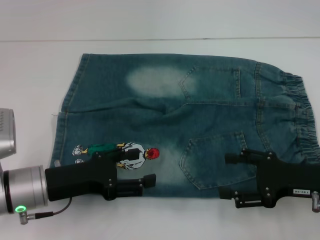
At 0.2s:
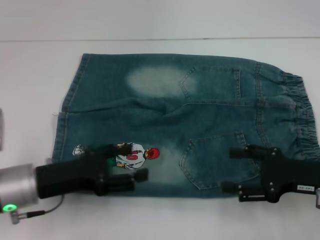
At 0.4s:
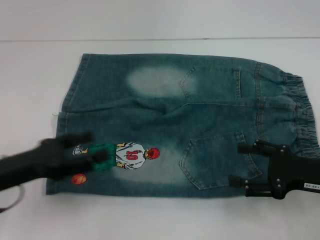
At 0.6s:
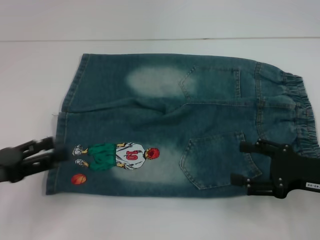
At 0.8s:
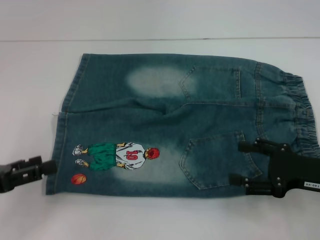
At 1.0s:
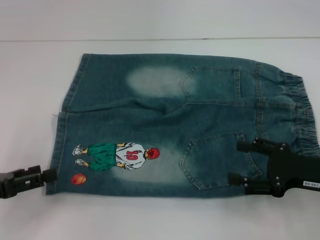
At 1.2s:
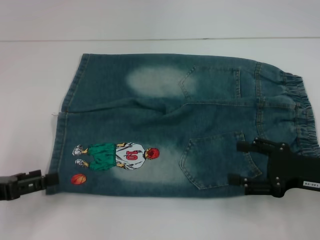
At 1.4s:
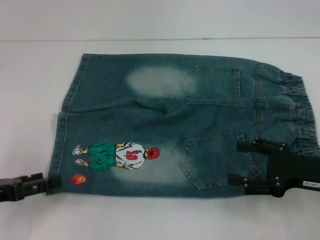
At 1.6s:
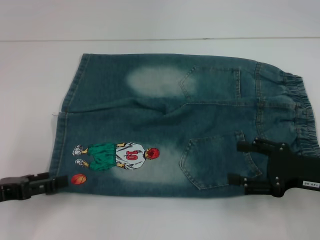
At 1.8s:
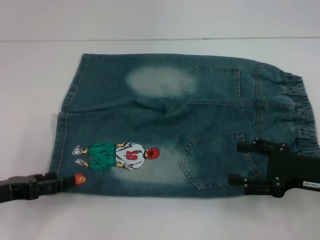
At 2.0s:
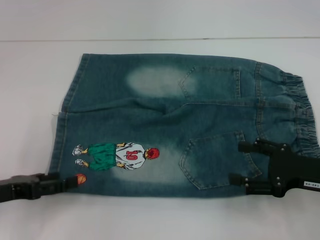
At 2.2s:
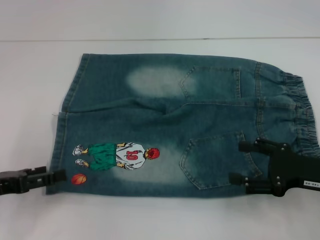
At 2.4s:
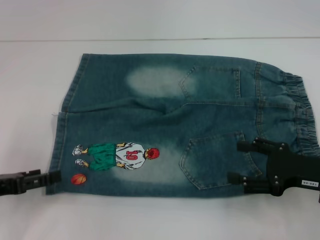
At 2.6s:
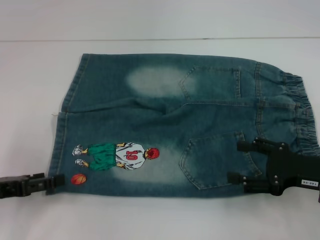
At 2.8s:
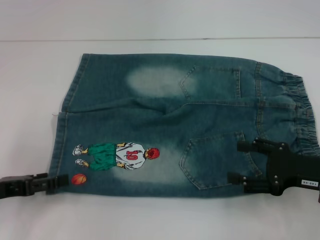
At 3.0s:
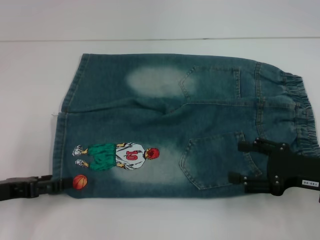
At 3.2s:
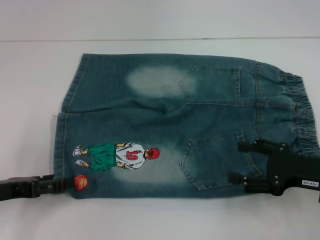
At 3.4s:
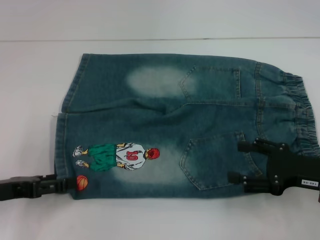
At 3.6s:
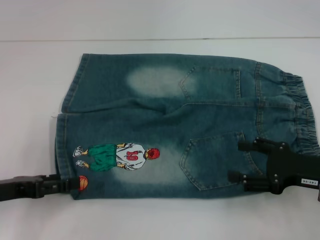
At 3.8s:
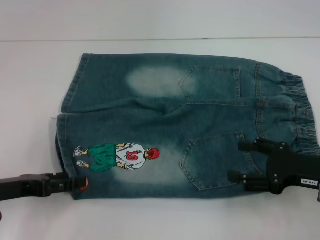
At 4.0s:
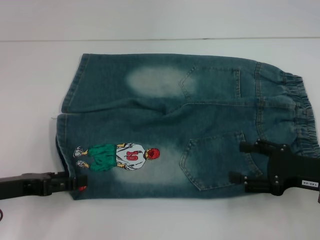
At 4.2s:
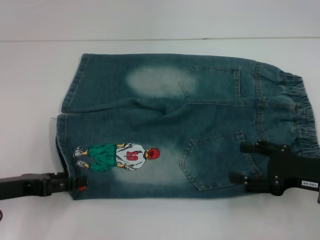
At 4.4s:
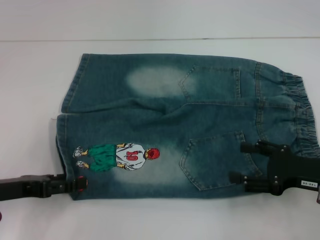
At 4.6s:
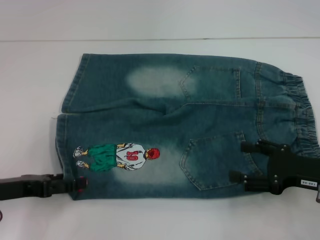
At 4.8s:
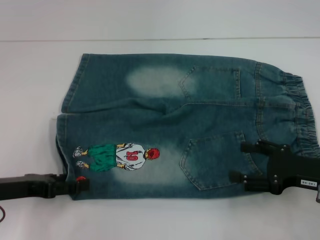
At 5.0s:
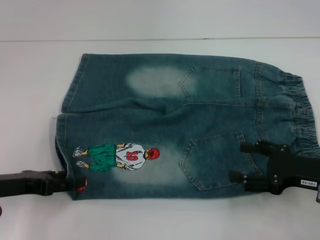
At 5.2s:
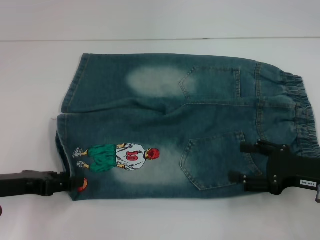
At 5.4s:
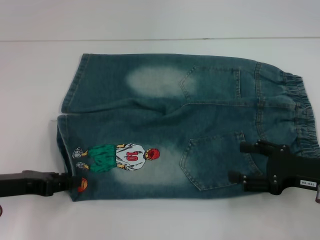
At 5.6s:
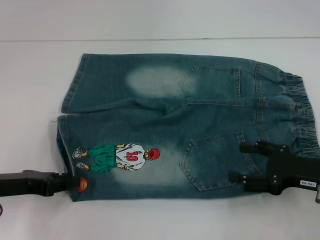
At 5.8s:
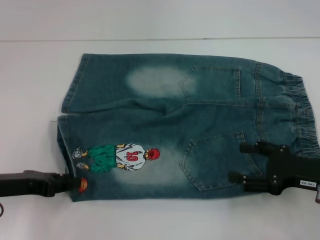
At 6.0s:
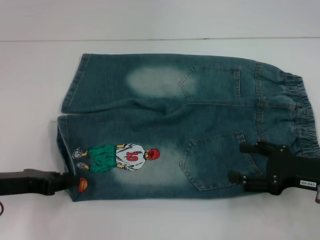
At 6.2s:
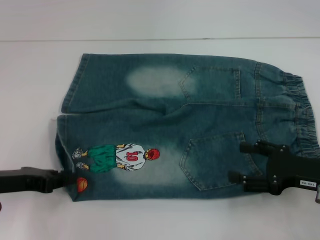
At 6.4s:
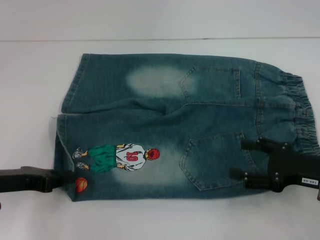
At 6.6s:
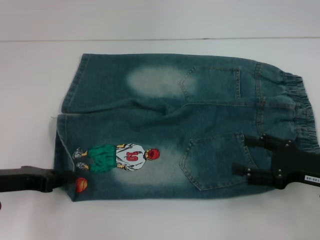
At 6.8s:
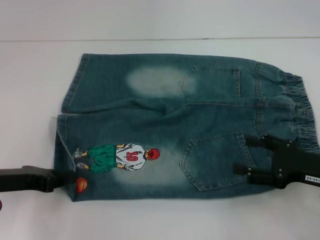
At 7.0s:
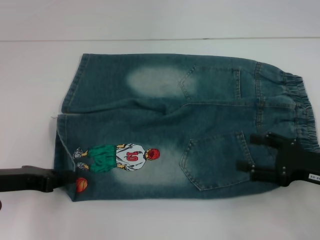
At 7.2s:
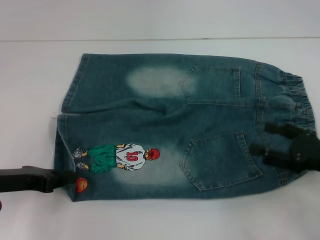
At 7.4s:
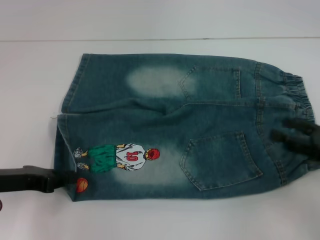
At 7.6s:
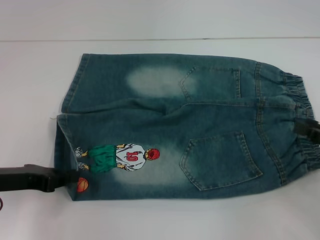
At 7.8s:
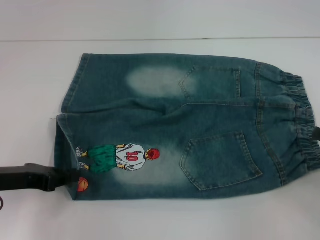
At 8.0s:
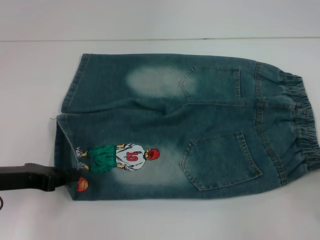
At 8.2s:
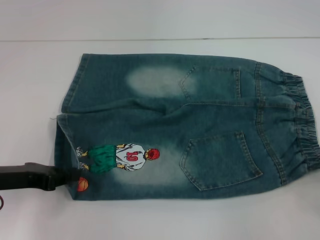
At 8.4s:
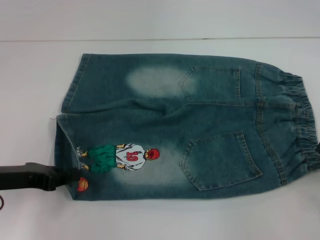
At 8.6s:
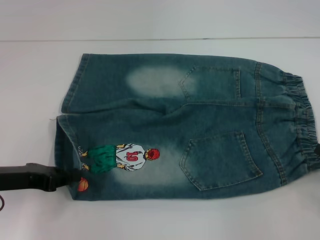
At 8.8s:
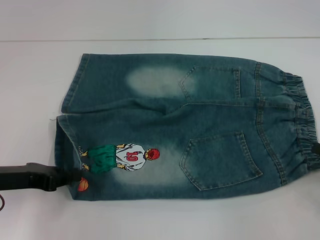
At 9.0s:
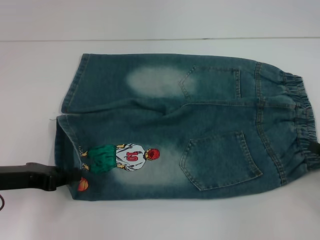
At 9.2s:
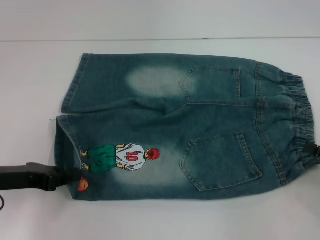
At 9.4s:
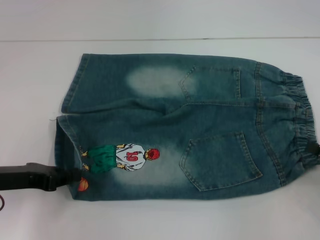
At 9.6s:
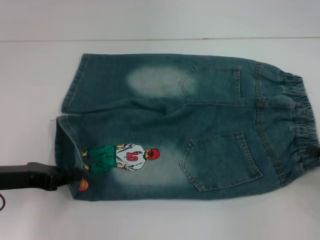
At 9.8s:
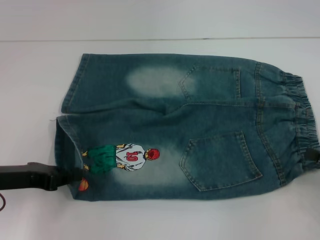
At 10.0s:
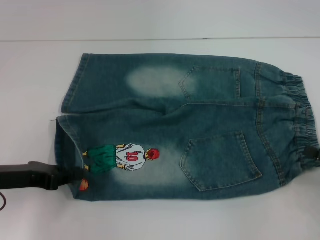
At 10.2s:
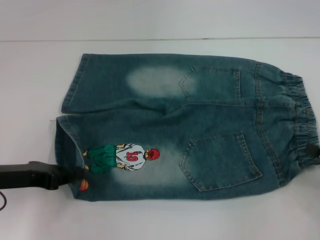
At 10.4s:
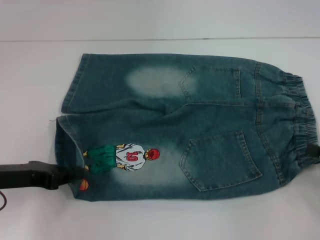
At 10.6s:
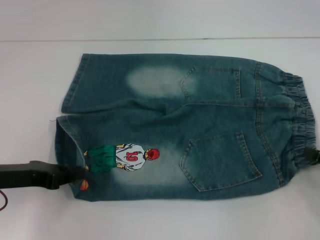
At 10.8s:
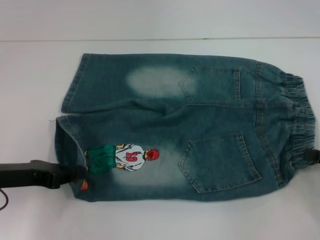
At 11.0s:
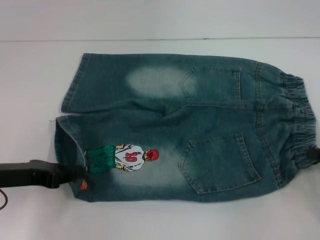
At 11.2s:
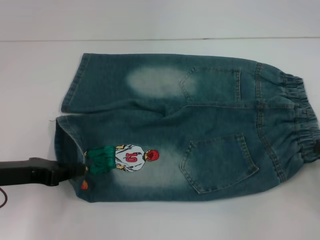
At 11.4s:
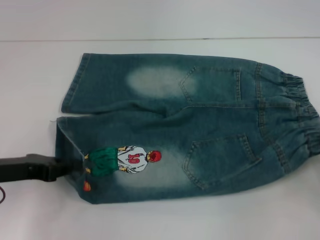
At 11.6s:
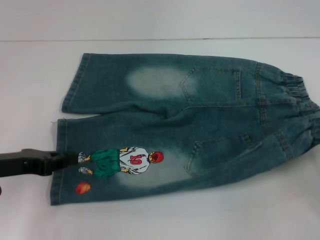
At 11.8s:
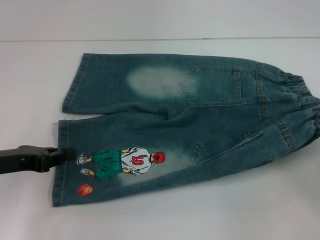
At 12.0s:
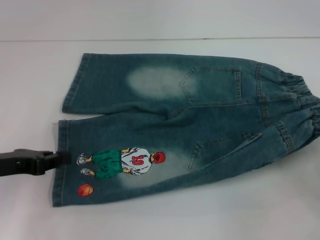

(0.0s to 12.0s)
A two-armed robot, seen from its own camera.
Step, 0.0s - 11.4s: Hold the lower right waistband with your right hand.
0.0s - 1.6s: The left gripper heads to the left, covering roughly 10 cm.
1.6s - 4.4s: The grippers move only a little.
4.4s - 6.0s: The left gripper closes.
6.0s - 7.6s: The right gripper shifts roughly 5 cm to the right.
7.6s - 10.4s: The grippers make only small movements.
10.4s - 12.0s: The right gripper closes up.

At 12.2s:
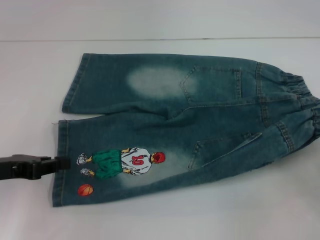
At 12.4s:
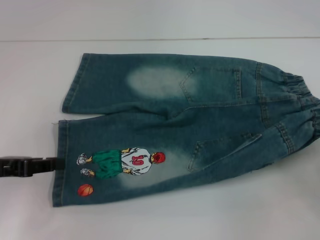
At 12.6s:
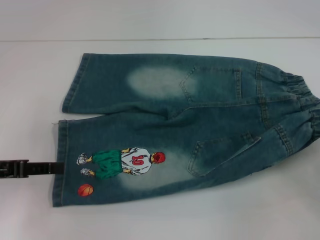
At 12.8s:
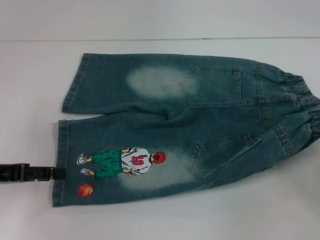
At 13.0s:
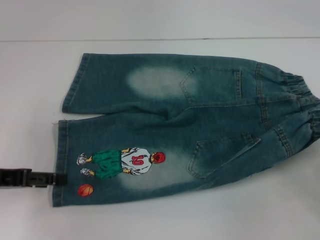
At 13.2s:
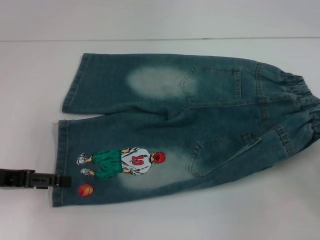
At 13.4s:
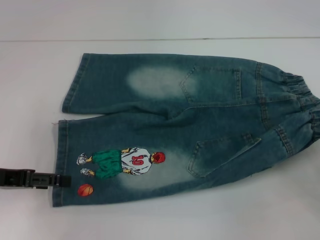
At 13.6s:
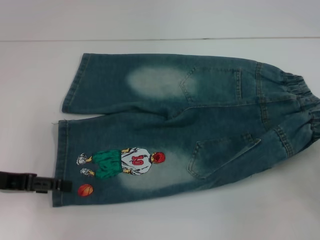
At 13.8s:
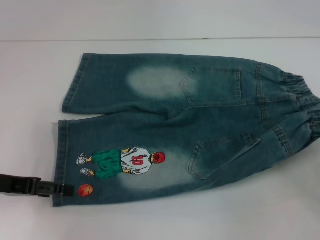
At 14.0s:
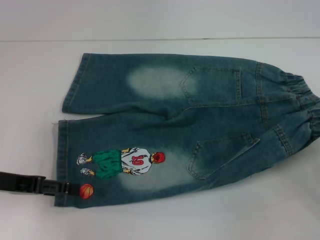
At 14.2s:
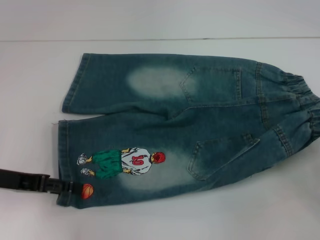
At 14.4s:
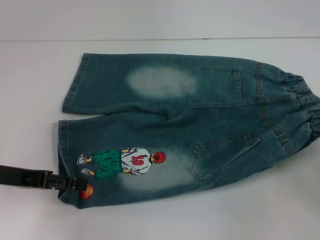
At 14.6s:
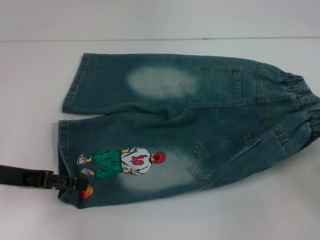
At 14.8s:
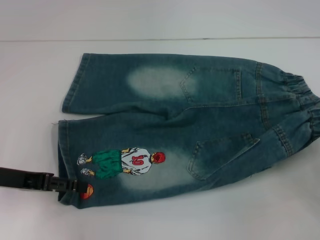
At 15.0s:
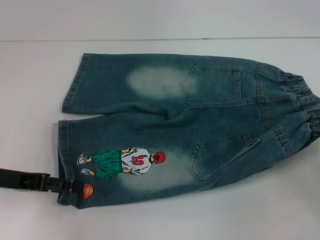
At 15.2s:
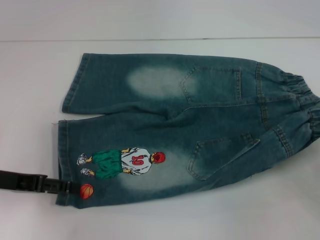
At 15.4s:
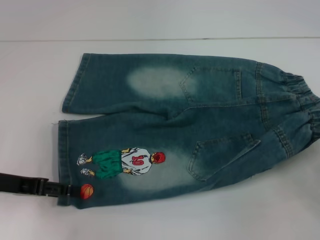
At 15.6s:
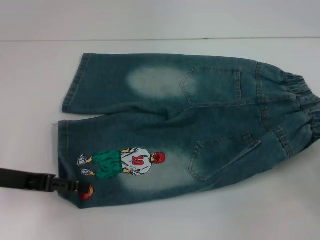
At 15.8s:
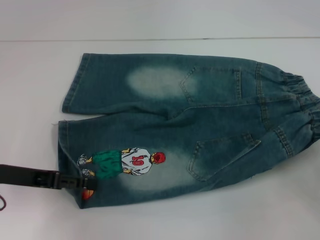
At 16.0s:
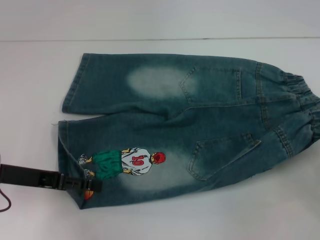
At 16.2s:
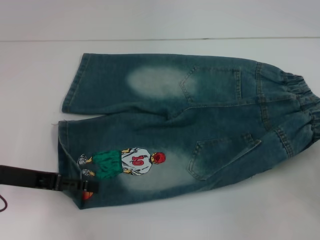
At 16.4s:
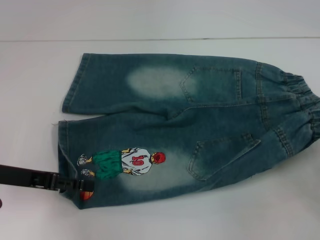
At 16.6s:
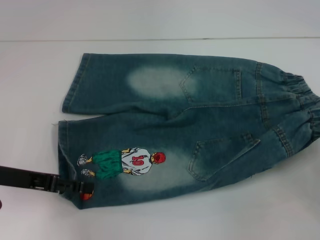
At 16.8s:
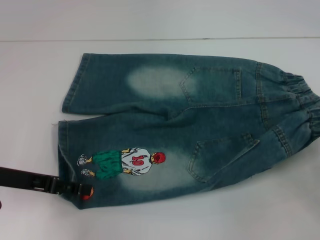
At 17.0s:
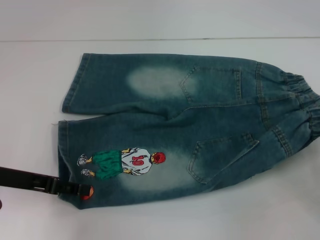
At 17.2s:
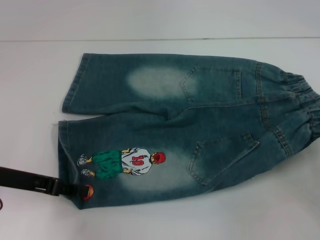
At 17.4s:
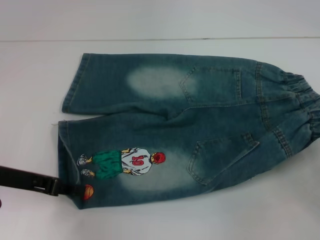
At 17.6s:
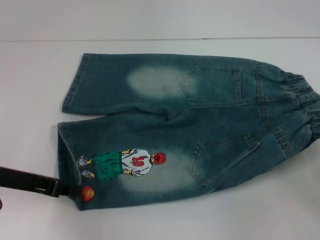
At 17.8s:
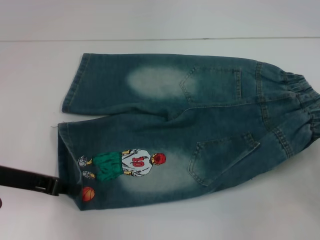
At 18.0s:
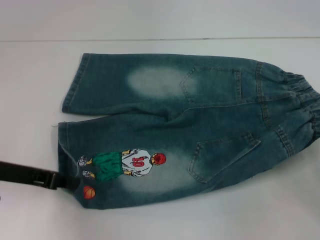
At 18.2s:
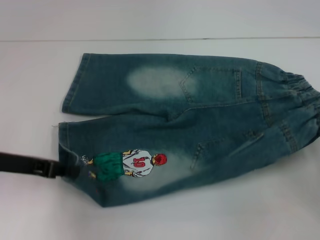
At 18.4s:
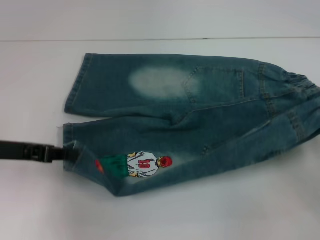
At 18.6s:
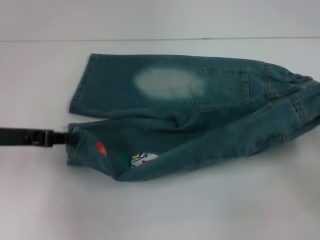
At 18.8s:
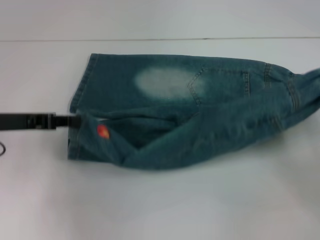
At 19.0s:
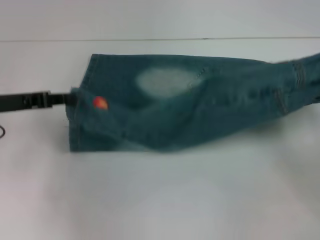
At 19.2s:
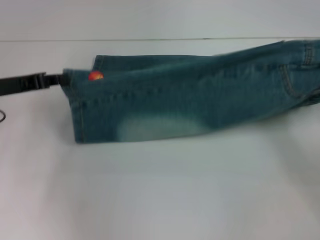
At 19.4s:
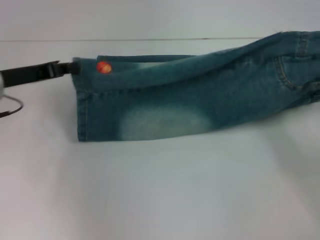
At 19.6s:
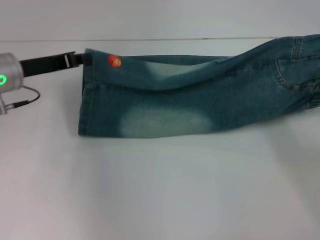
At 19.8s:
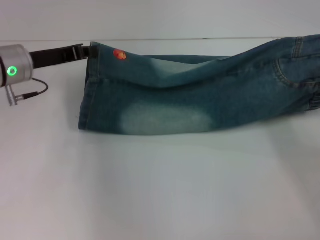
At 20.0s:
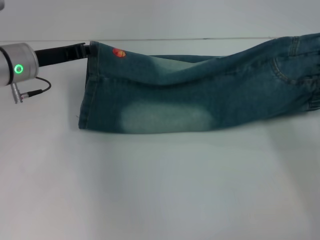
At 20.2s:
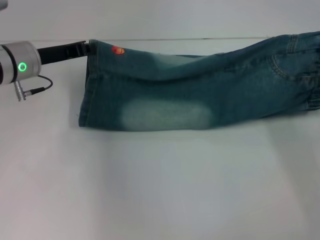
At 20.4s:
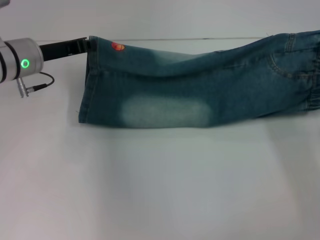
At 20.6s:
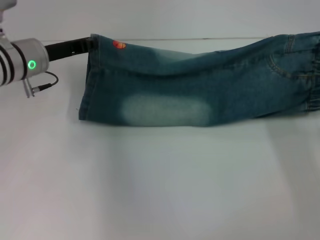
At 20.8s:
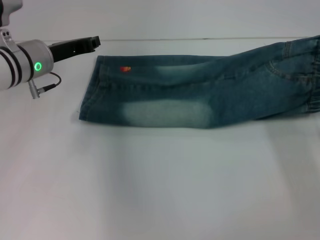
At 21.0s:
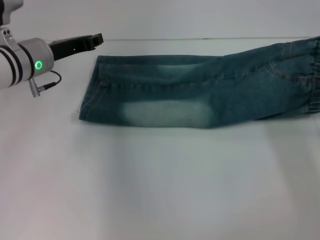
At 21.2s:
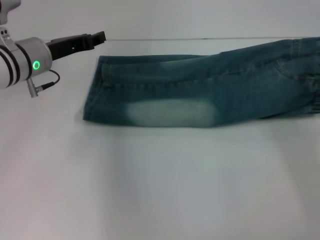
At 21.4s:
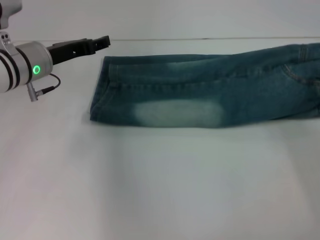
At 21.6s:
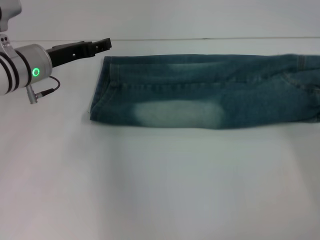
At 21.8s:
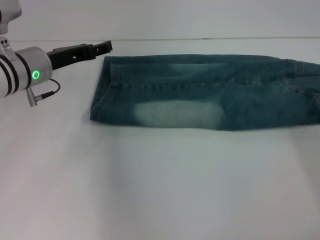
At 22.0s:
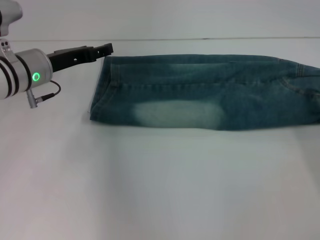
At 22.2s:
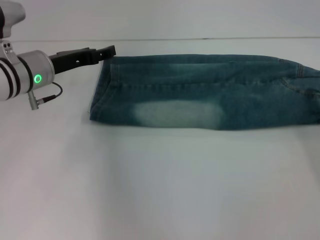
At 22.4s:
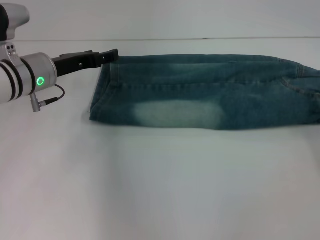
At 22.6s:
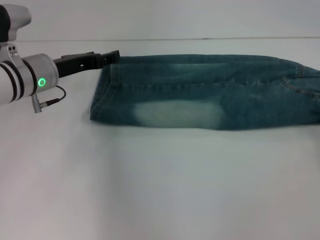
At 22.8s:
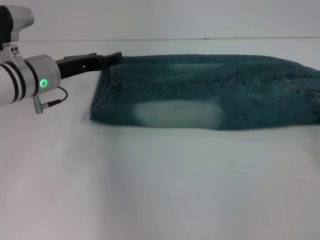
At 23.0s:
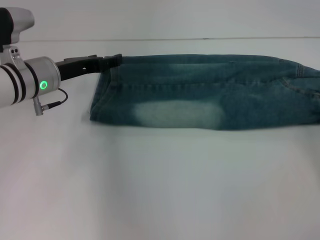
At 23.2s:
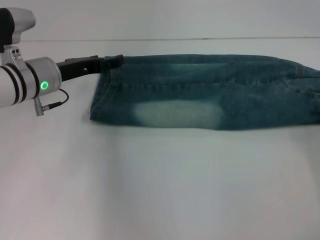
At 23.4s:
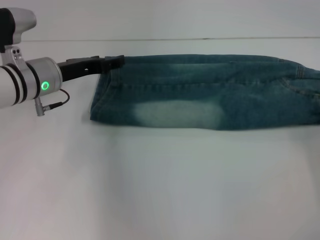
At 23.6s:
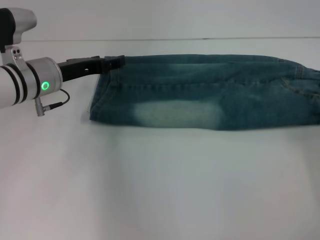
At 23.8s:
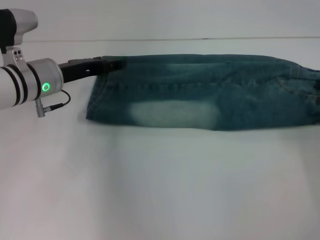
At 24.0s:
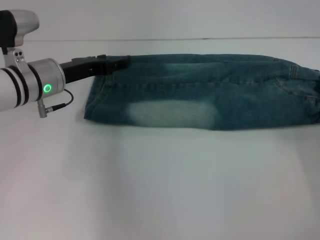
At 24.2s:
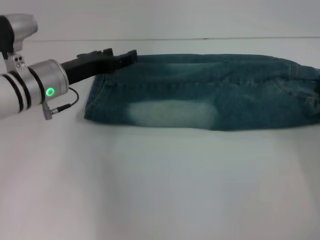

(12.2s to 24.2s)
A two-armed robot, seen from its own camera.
Step, 12.2s - 18.0s: Grab the lower left pant leg with your left hand.
Step, 18.2s - 22.0s: Fold upward with your right hand.
12.2s - 13.8s: The left gripper opens.
13.8s - 16.6s: The grippers make only small movements.
16.6s - 18.2s: The left gripper closes up.
18.2s - 19.8s: The left gripper is displaced forward by roughly 10 cm, while the right gripper shifts roughly 5 cm forward.
19.8s - 21.2s: The left gripper opens its fingers.
21.2s - 22.6s: The right gripper shifts some 10 cm backward and to the right, and opens, while the left gripper opens its fingers.
22.6s - 24.2s: The right gripper shifts by approximately 5 cm, and closes up.
